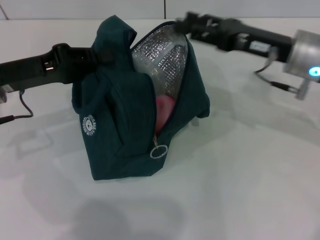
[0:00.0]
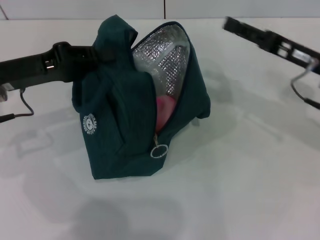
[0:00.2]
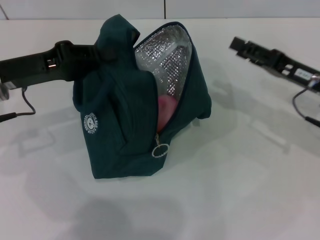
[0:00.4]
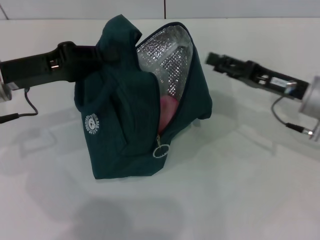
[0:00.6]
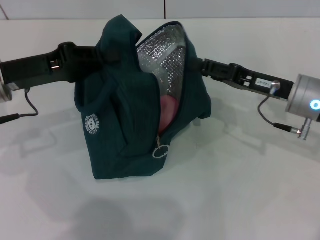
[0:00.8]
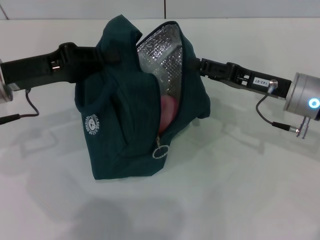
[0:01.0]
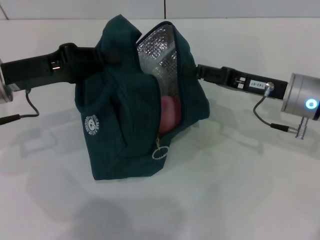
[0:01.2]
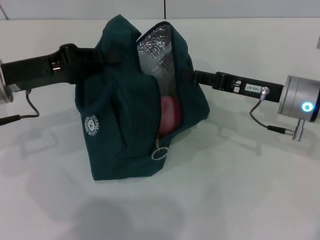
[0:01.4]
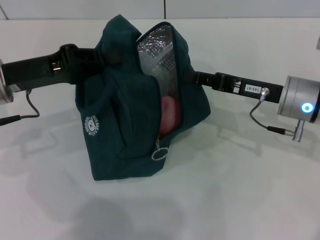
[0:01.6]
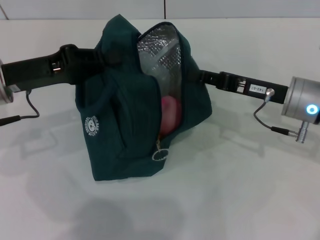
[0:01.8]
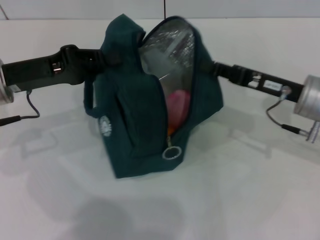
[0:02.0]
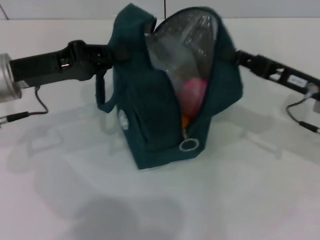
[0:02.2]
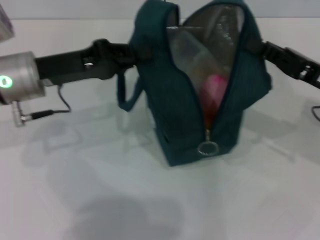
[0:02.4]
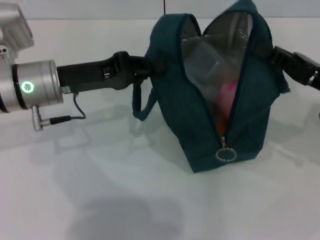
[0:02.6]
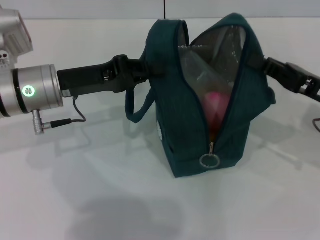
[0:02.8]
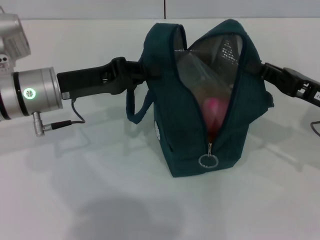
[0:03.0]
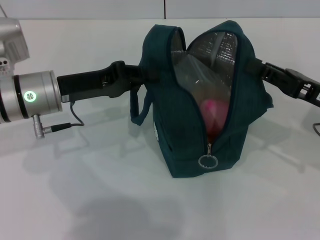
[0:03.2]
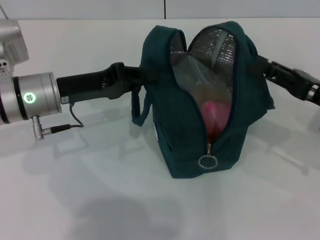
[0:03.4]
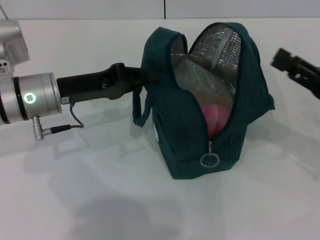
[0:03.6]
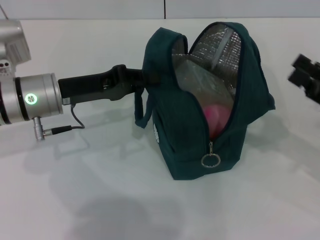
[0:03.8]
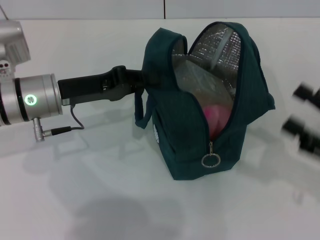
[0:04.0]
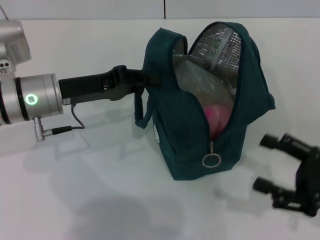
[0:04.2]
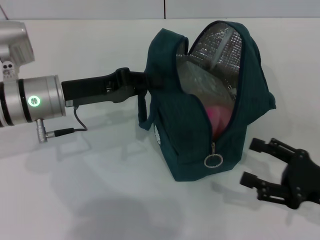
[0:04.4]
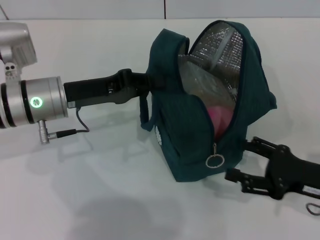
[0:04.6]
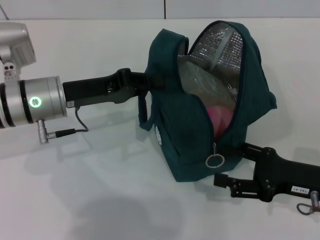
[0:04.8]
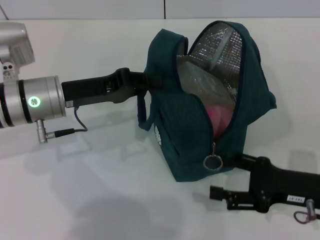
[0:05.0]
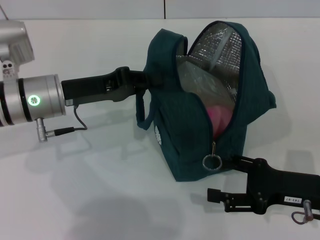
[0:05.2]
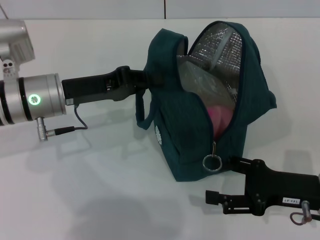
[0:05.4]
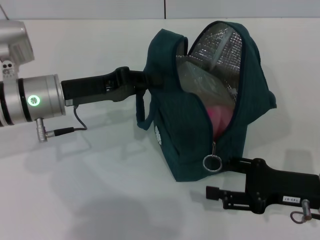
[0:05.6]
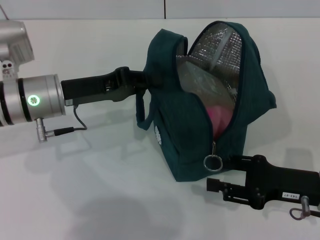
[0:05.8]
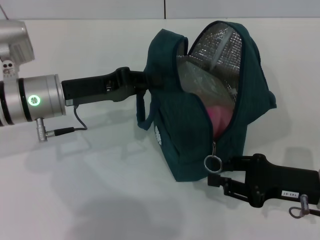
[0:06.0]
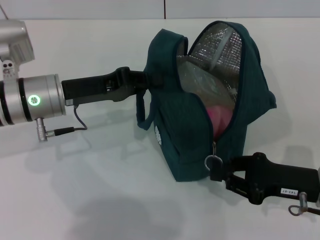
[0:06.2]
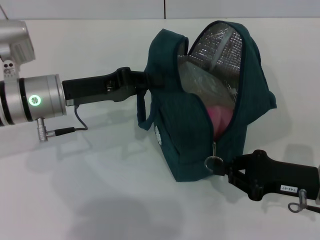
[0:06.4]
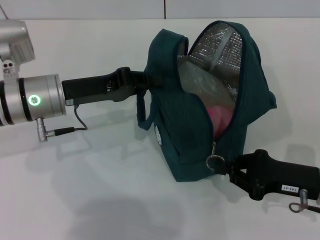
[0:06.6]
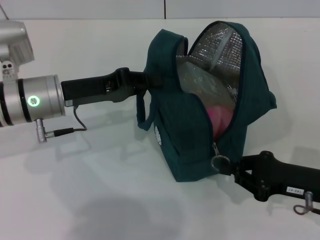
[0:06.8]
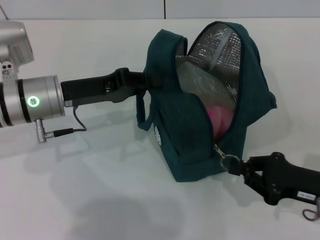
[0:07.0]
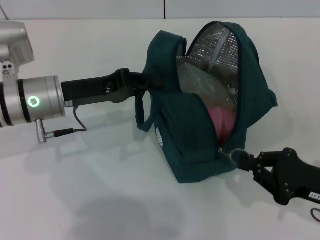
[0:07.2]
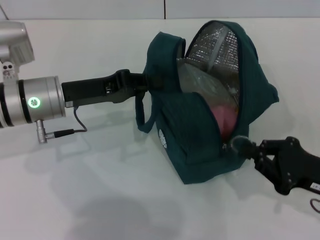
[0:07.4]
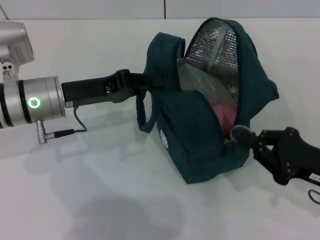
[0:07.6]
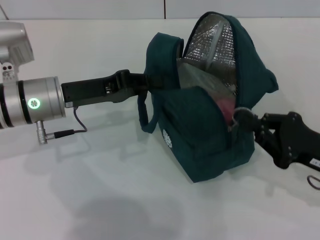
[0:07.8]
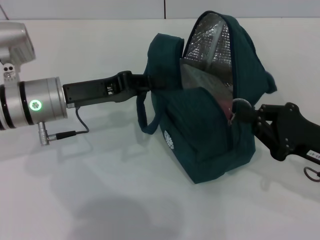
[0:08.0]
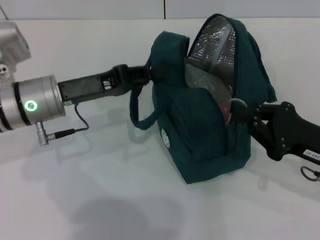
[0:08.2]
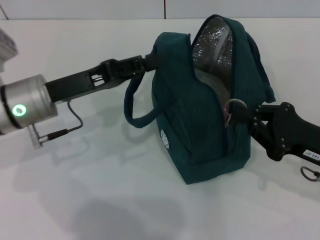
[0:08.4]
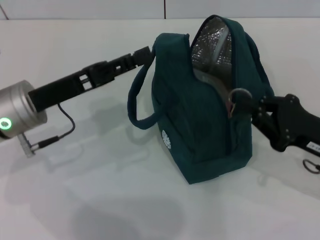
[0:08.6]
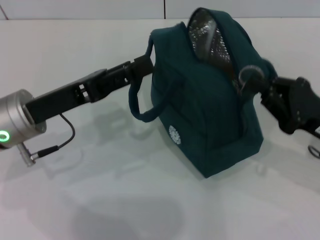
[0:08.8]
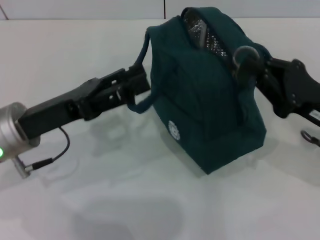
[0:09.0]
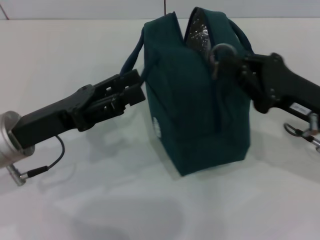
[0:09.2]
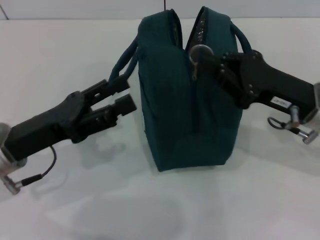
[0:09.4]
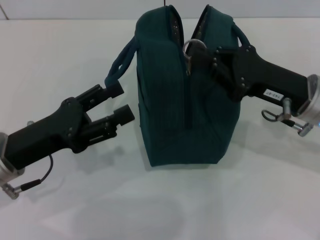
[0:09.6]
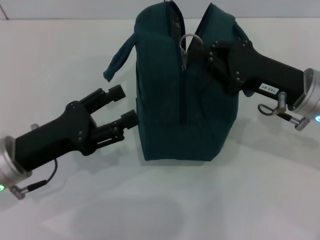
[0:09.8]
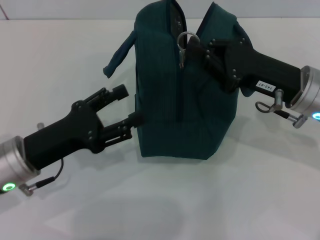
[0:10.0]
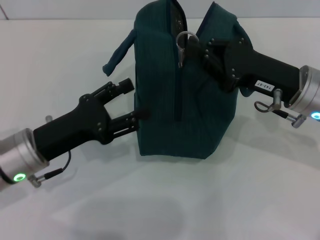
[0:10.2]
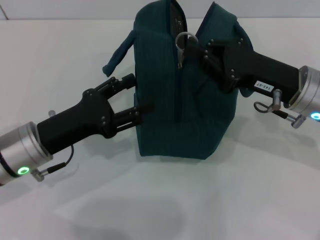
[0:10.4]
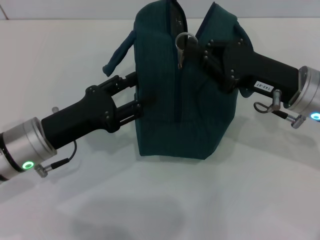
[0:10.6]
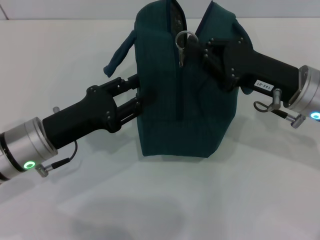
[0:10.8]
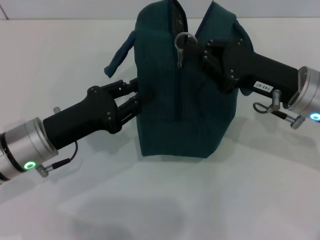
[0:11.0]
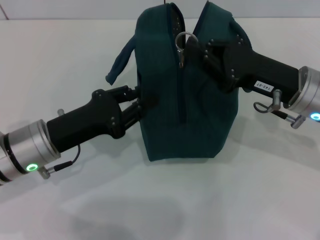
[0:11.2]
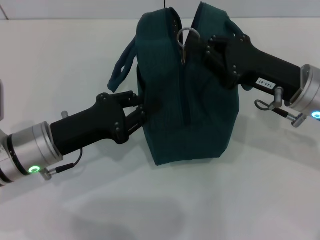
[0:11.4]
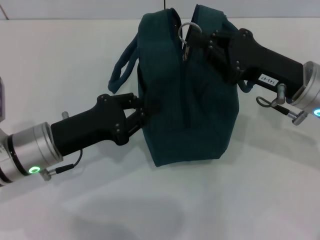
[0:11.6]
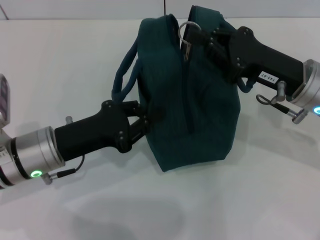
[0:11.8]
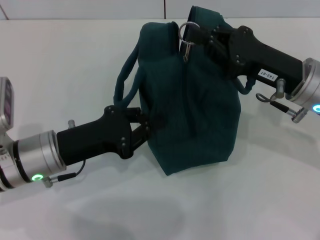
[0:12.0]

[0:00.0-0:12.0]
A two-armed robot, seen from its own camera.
Step, 0:00.0 to 0:03.4: Hold the lunch bag with your right hand.
Step, 0:03.6 to 0:08.4: Hold the lunch bag with your left hand.
0:00.0 to 0:01.6: The right gripper shifts some 5 cm downward, and closes up.
0:01.6 to 0:03.0: Both grippers travel together to the right, roughly 5 cm.
0:03.0 to 0:04.4: The right gripper goes roughly 10 cm backward and downward, and opens up.
0:04.4 to 0:06.0: The right gripper moves roughly 5 cm.
0:06.0 to 0:07.6: The right gripper closes its fingers.
0:07.6 to 0:09.0: The right gripper shifts by some 5 cm; the left gripper shifts approximately 5 cm backward, and opens up.
0:09.0 to 0:10.4: The right gripper is displaced to the left by approximately 5 cm.
0:10.4 to 0:12.0: The left gripper closes.

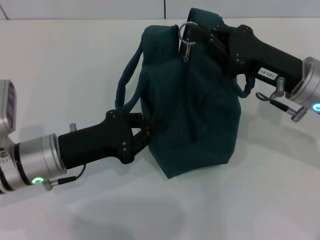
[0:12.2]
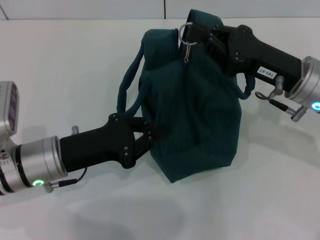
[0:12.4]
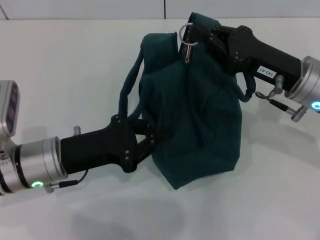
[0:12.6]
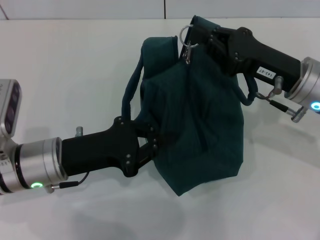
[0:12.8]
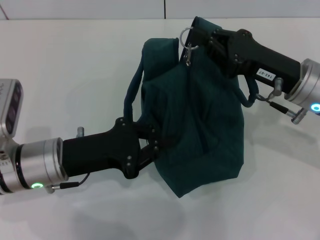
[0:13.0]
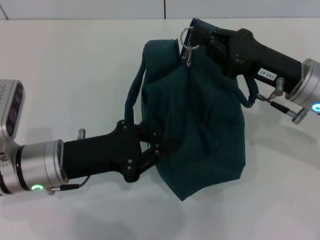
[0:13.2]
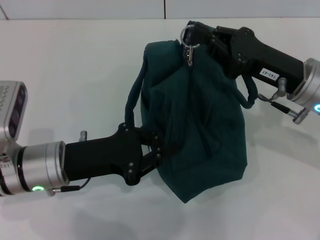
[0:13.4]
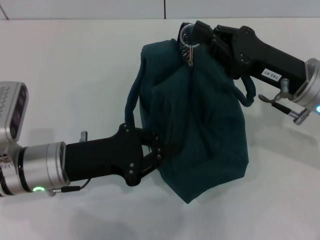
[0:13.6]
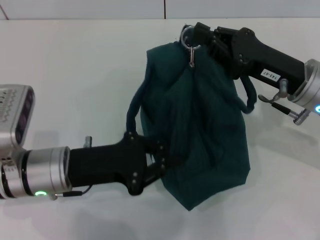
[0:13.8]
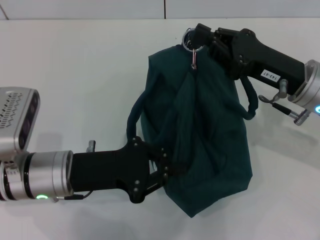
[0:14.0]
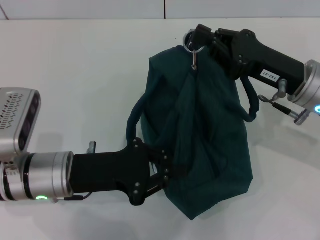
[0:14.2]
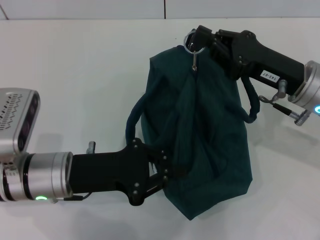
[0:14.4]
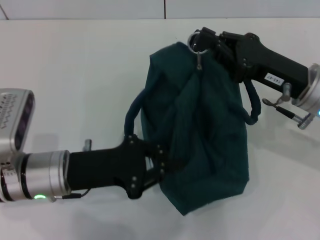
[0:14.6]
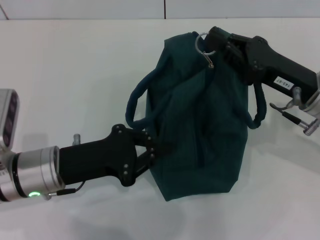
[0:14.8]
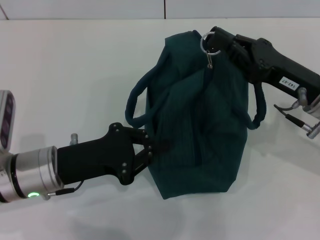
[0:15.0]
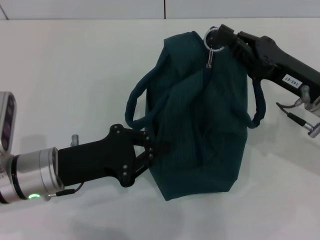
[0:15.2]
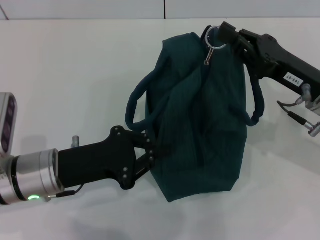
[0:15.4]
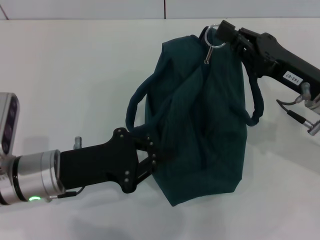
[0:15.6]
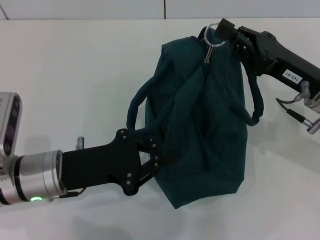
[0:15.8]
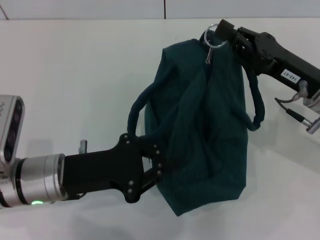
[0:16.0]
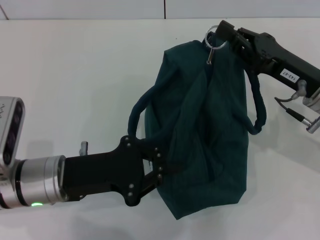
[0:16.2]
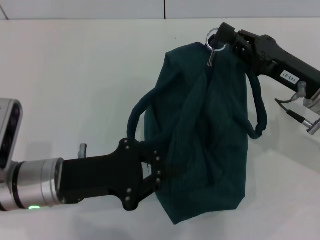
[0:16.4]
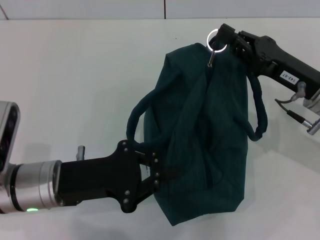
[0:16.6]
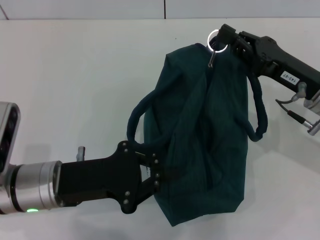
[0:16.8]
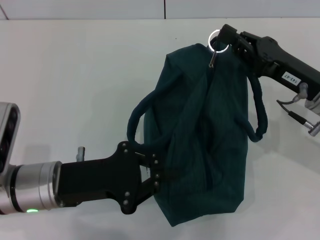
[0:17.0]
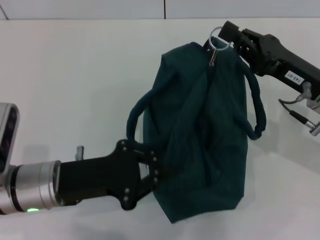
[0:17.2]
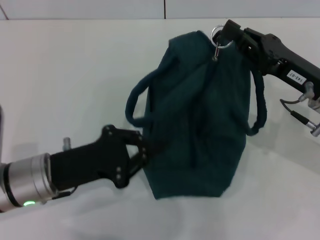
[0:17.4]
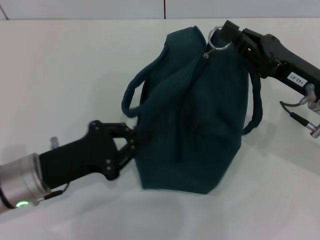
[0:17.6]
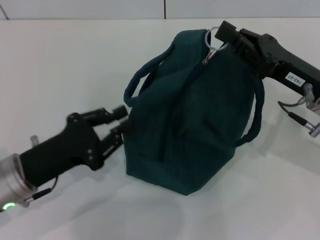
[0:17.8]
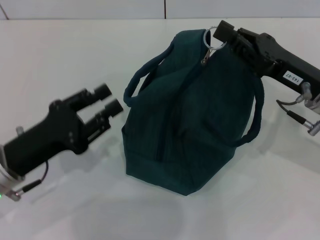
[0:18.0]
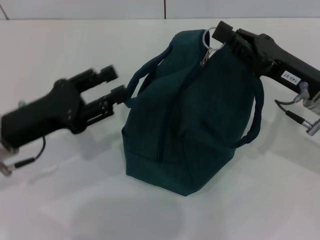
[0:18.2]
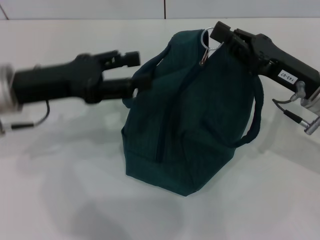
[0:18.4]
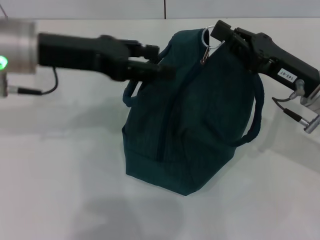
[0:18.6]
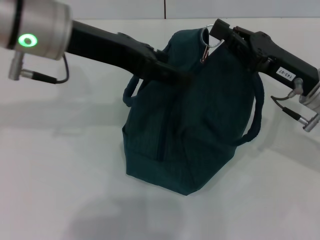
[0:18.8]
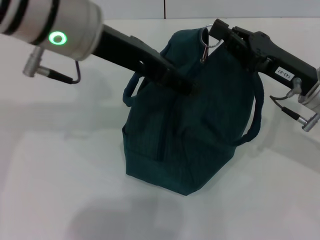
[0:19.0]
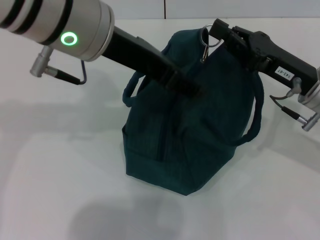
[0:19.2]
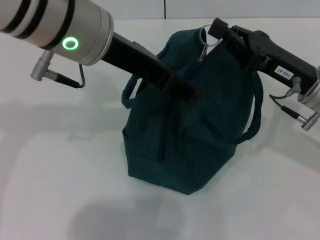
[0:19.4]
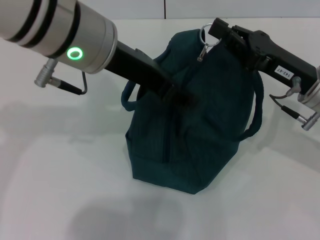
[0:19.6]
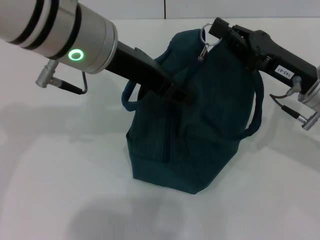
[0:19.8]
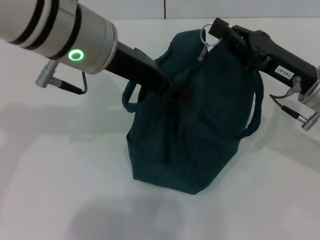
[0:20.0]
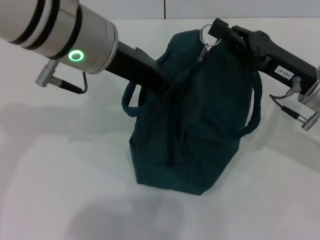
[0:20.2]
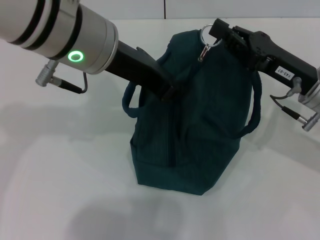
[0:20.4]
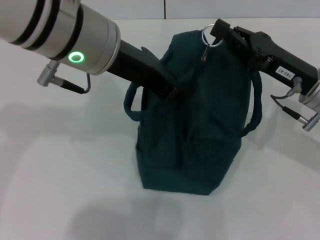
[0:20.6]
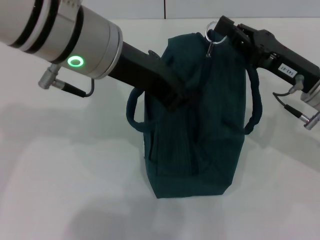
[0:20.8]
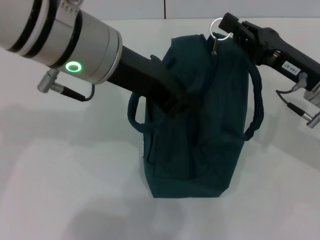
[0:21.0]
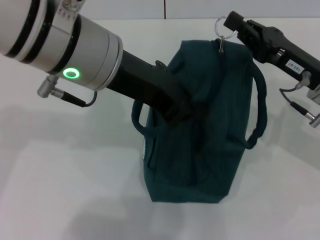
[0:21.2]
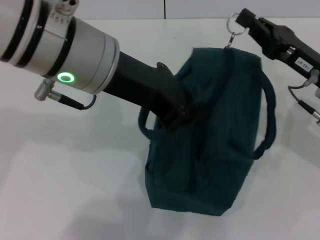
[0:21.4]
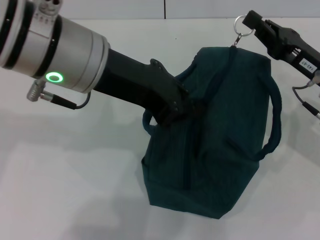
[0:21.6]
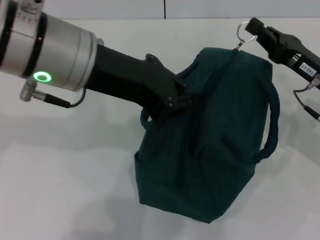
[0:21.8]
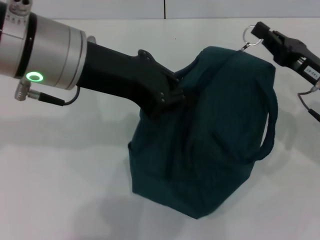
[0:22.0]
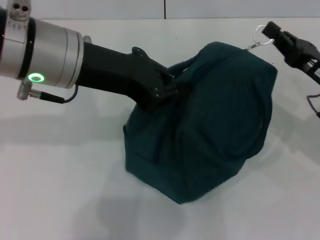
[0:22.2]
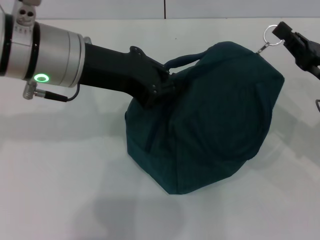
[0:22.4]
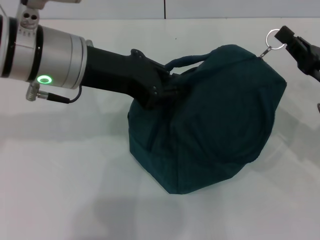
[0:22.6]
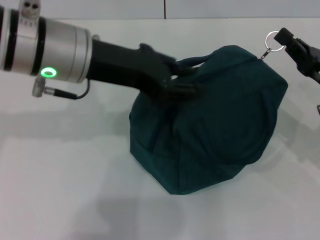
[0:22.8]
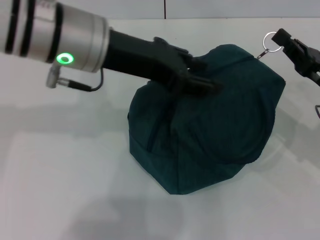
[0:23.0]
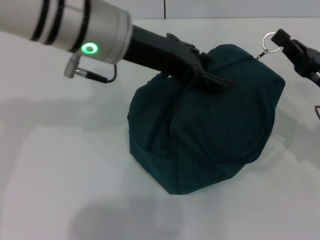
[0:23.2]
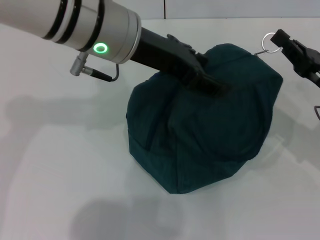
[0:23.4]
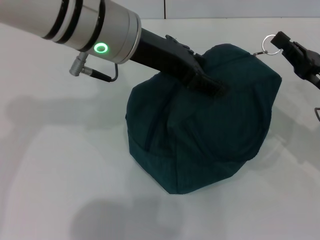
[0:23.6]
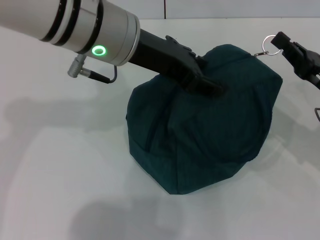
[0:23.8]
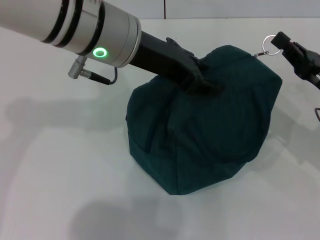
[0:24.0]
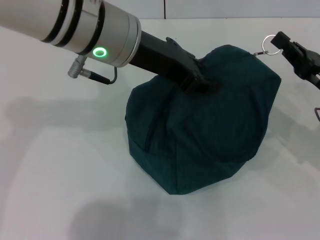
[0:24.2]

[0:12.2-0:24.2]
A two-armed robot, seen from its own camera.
0:13.8 to 0:16.6: There are only small adjustments of the grippers.
0:16.6 to 0:18.2: The left gripper is displaced to the left by roughly 5 cm, and opens its fingers.
0:18.2 to 0:19.8: The left gripper travels upward and to the right by about 20 cm.
0:19.8 to 0:21.2: The left gripper closes its fingers.
0:21.2 to 0:22.6: The left gripper moves roughly 5 cm. Meanwhile the right gripper heads to the right, covering approximately 5 cm.
0:22.6 to 0:24.2: The left gripper is displaced to the right by roughly 5 cm, and opens up.
